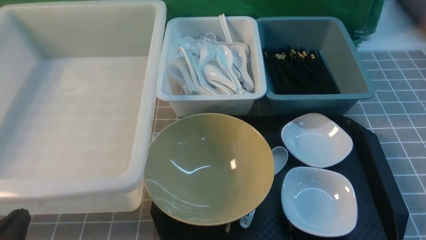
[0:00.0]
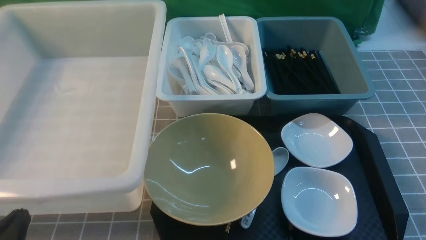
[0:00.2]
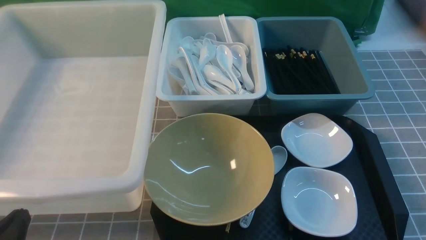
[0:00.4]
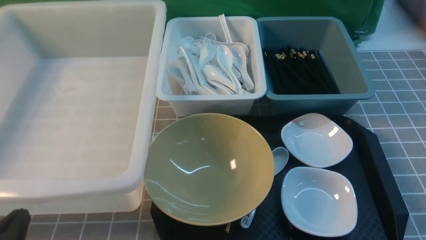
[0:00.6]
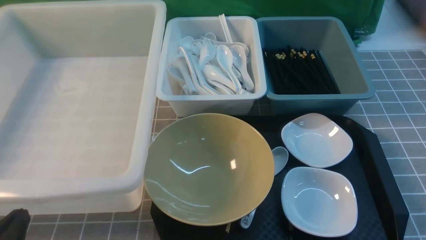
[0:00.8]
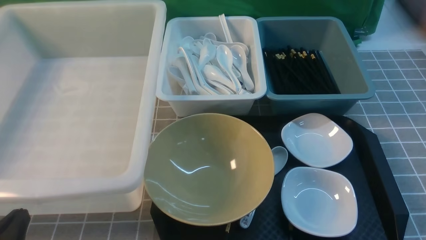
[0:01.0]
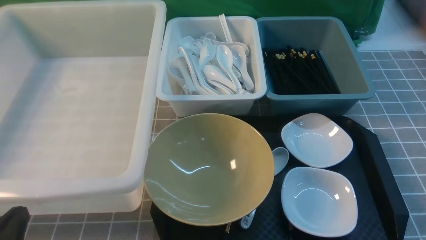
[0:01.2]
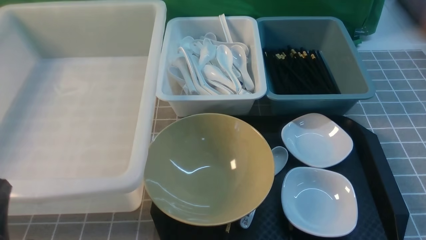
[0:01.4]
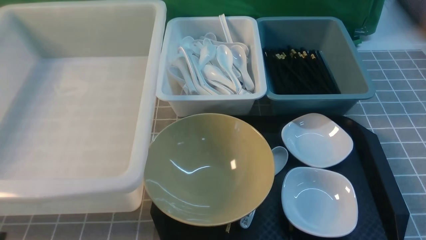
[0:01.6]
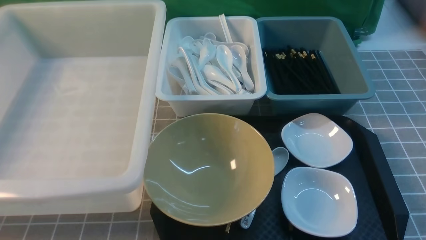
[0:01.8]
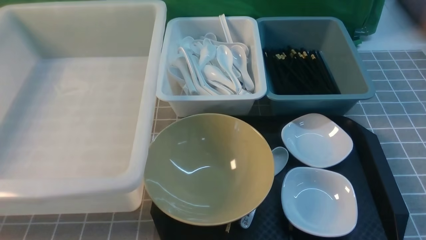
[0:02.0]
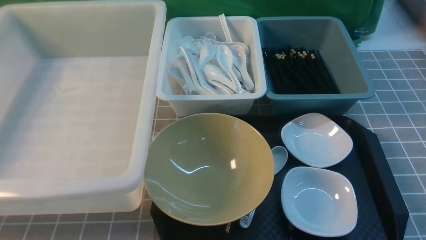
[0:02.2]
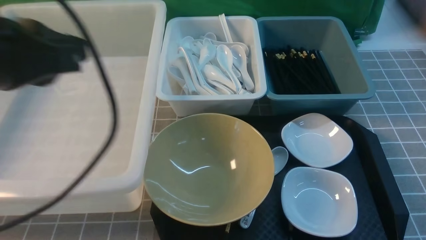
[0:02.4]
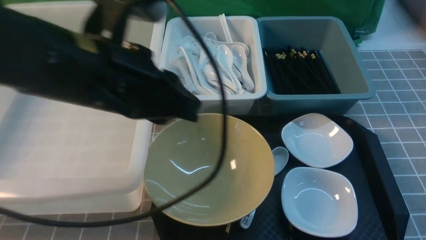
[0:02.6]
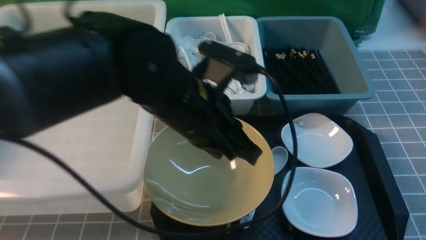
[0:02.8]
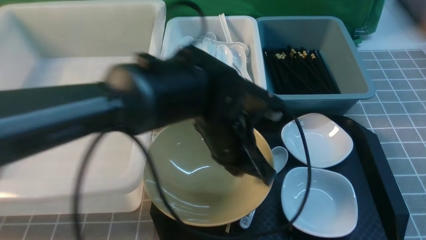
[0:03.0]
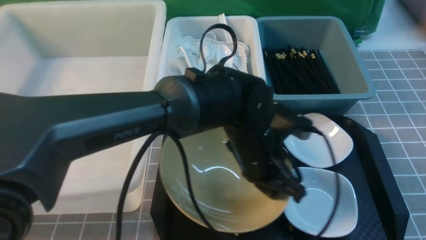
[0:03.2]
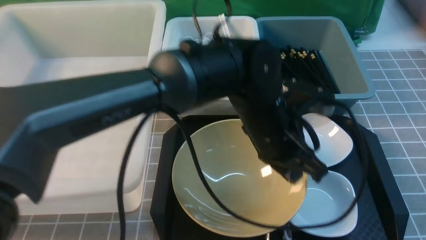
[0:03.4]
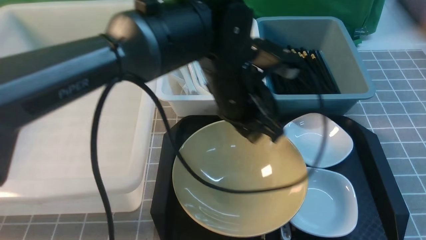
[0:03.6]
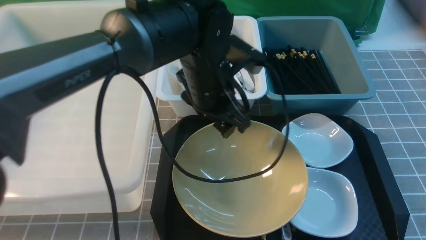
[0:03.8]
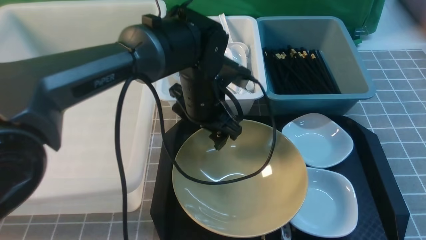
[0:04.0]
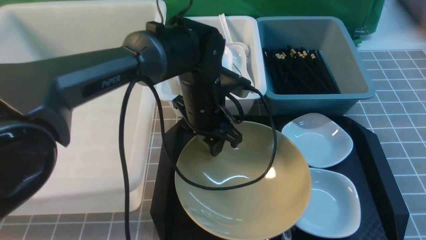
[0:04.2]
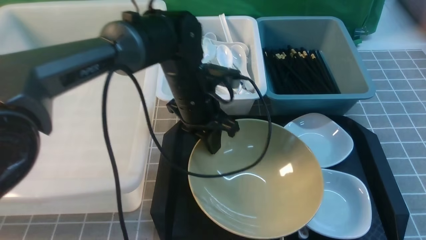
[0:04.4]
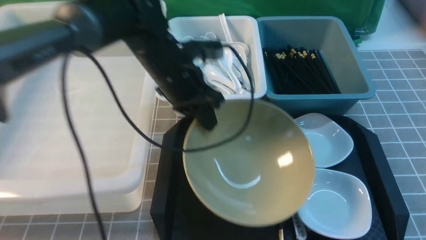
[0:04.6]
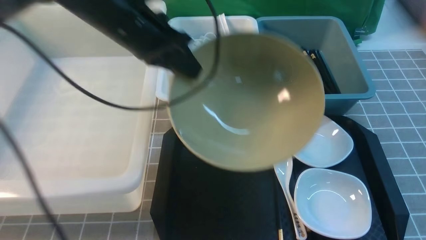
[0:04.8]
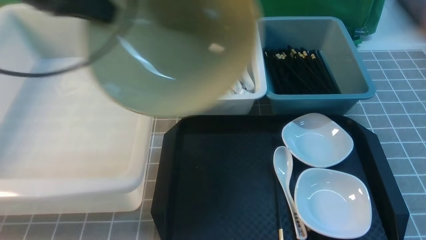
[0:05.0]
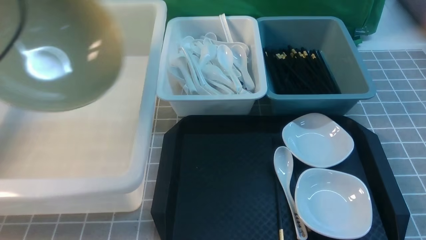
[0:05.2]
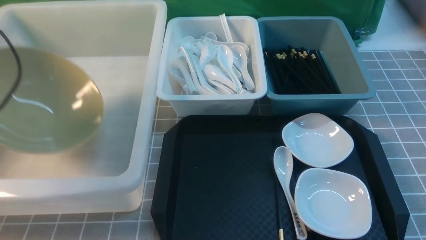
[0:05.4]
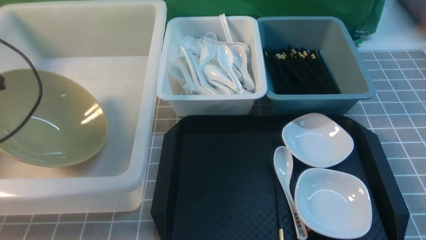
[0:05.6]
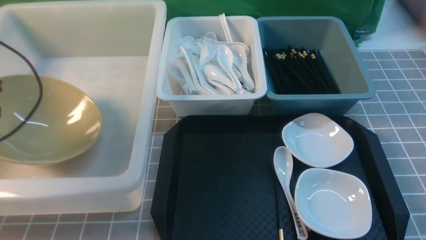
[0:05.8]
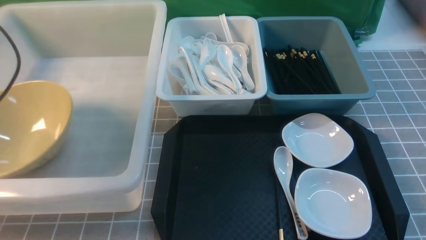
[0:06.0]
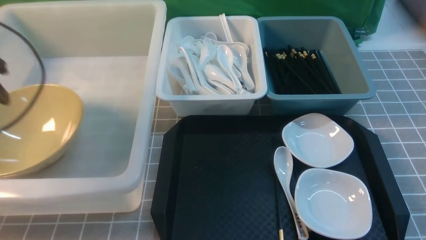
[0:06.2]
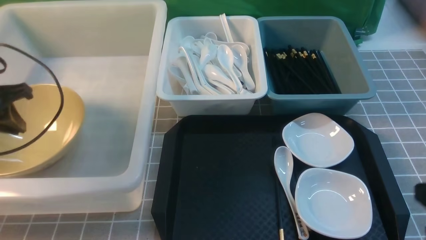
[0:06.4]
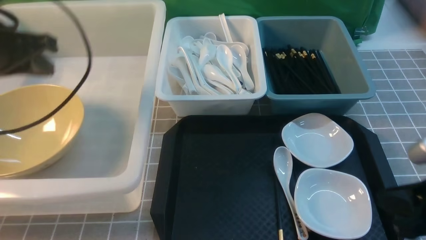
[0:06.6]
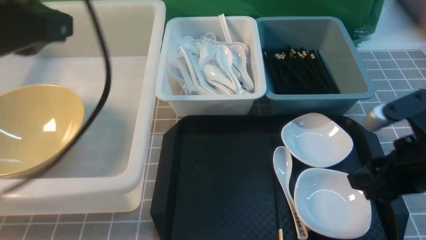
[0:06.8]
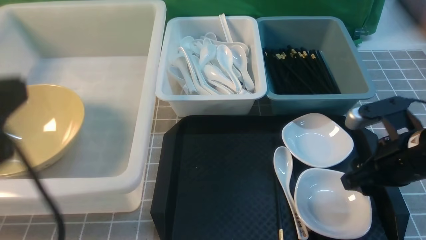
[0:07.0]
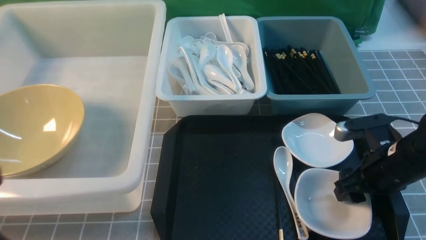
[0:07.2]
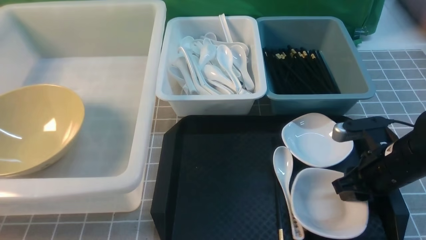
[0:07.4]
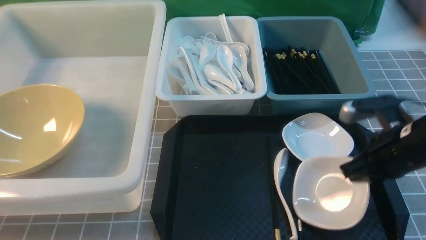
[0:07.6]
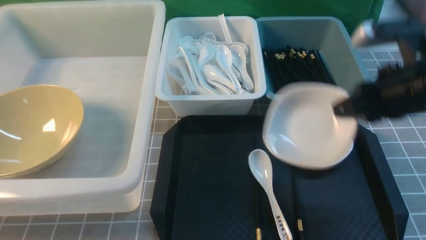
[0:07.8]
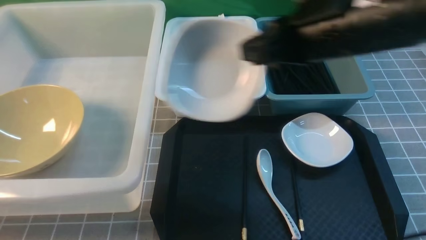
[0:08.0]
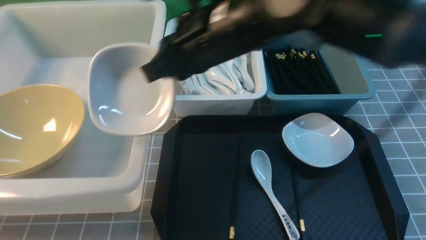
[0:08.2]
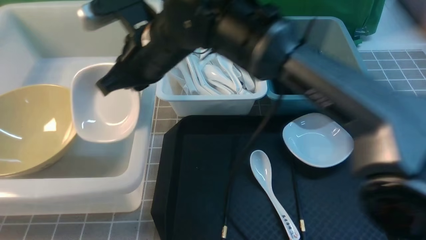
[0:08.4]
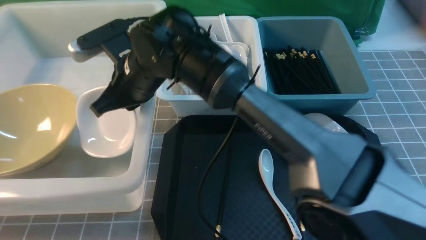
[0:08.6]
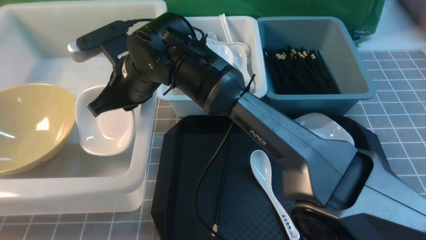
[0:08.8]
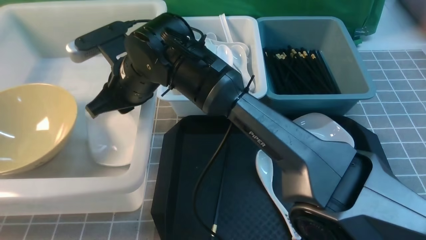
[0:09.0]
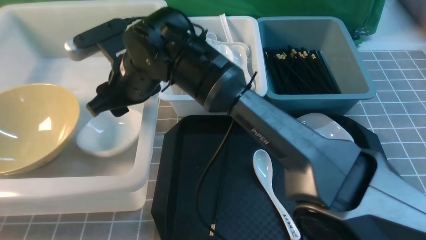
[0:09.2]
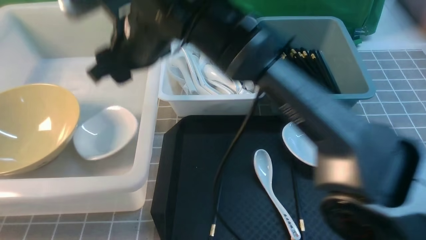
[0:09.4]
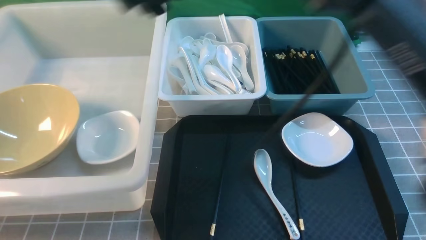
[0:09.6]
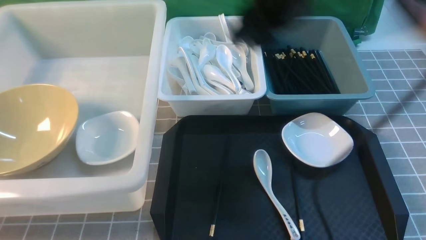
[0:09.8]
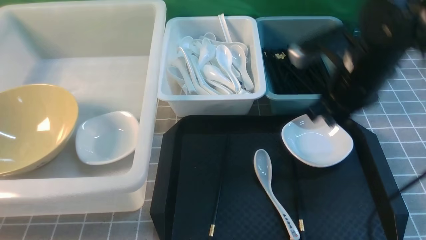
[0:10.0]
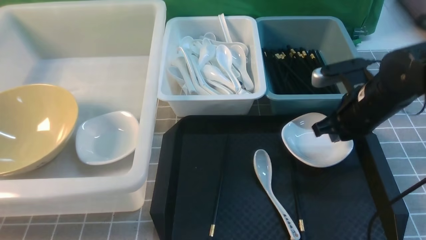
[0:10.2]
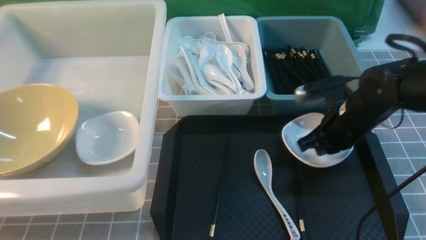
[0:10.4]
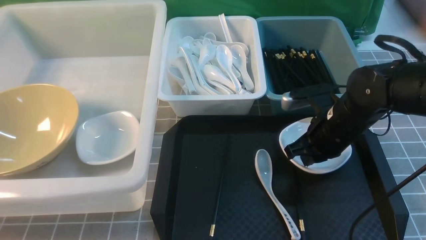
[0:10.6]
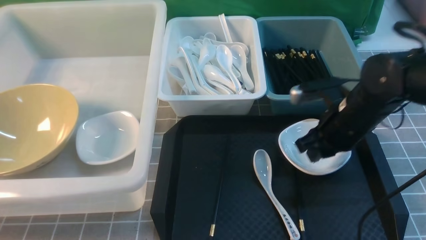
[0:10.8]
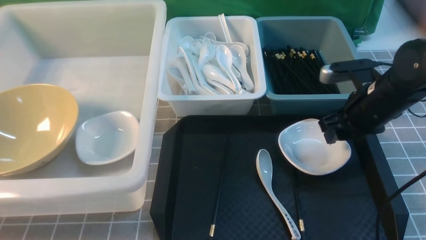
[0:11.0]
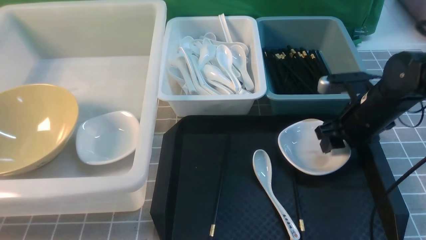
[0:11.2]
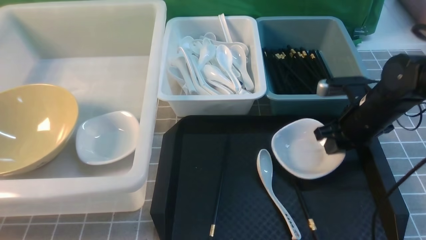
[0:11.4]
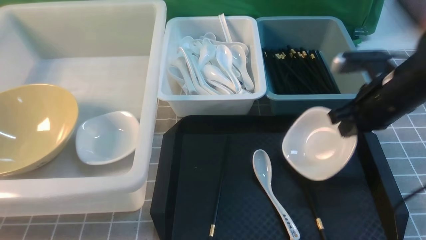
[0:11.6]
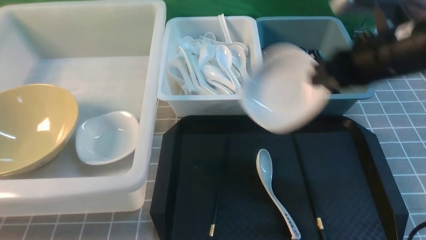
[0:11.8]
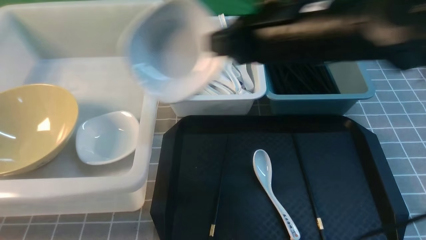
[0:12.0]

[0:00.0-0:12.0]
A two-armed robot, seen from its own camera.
Task of the whole recording: on grey table put chopsticks spoon bowls plates into blue grey white boxes.
Step, 0:00.0 to 0:04.6: use the left arm to grab the yellow noodle bowl on the left.
Step, 0:04.8 to 0:06.4: use the left arm to put the noodle bowl into the large storage box on the left.
Step, 0:06.8 to 0:07.6: use the right arm to grab the plate.
Step, 0:07.8 to 0:09.2: use the right arm to put the plate into the large storage box on the left.
Step, 0:09.4 to 0:11.6: use the right arm to grab the plate.
0:00.0 to 0:01.6: The left gripper heads upward, covering roughly 5 cm.
0:01.6 to 0:03.0: The right gripper shifts some 5 cm forward, and goes upward and returns, roughly 10 cm each way, while the left gripper shifts approximately 35 cm to the right and forward.
0:03.0 to 0:04.4: The left gripper heads forward and to the left, covering some 10 cm, and opens, then closes again.
0:04.4 to 0:06.0: The left gripper shifts approximately 35 cm to the left, and opens its fingers.
0:06.0 to 0:07.6: The left gripper goes roughly 30 cm backward, and closes up; the right gripper is displaced forward and to the left by roughly 15 cm, and opens, then closes once more.
0:07.6 to 0:09.0: The right gripper goes approximately 35 cm to the left.
0:09.0 to 0:10.4: The right gripper shifts some 30 cm to the right, and closes up.
0:10.4 to 0:12.0: The right gripper heads upward and to the left, covering roughly 20 cm, and opens, then closes once more.

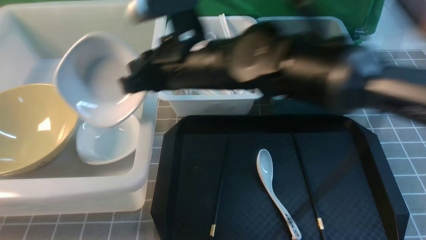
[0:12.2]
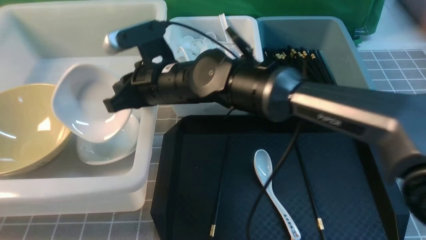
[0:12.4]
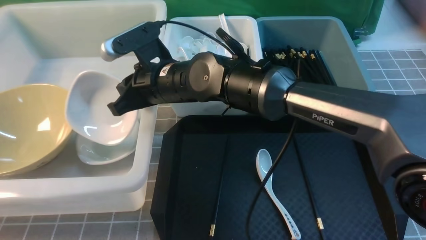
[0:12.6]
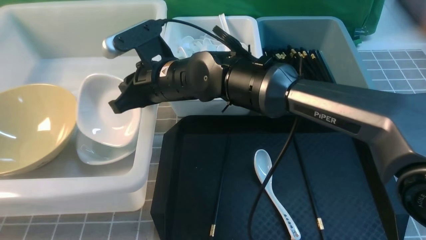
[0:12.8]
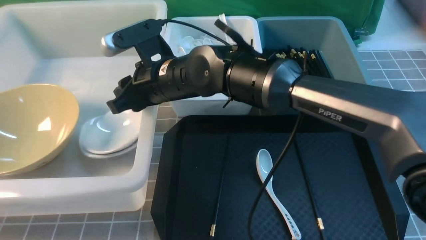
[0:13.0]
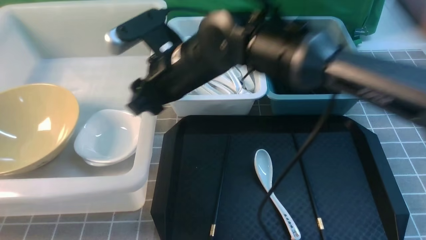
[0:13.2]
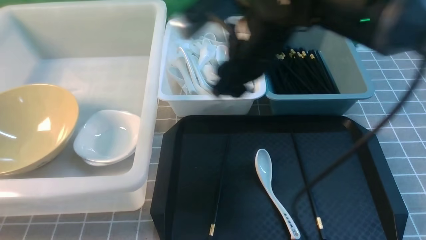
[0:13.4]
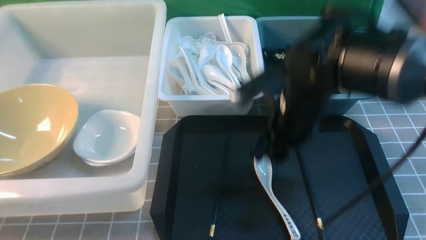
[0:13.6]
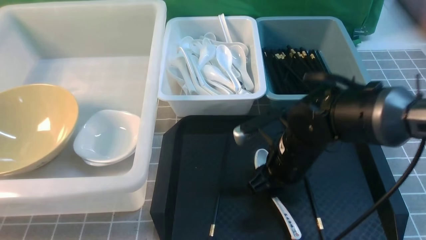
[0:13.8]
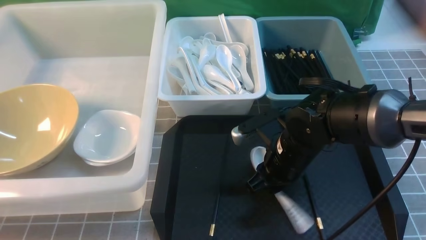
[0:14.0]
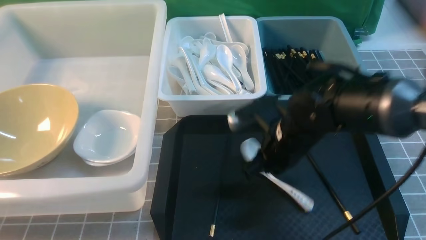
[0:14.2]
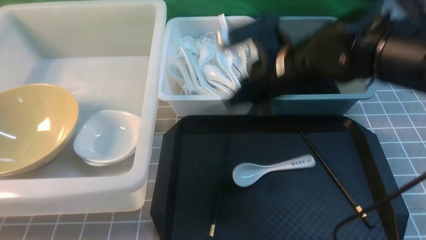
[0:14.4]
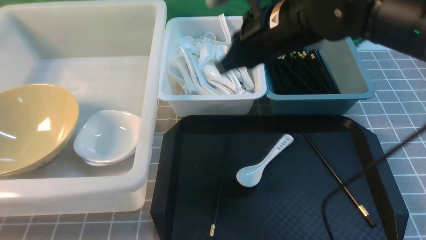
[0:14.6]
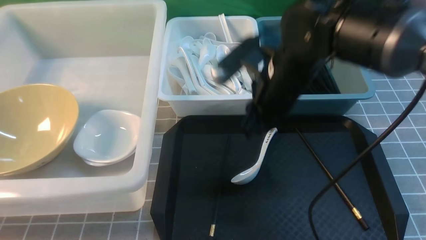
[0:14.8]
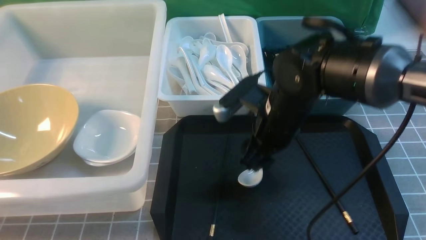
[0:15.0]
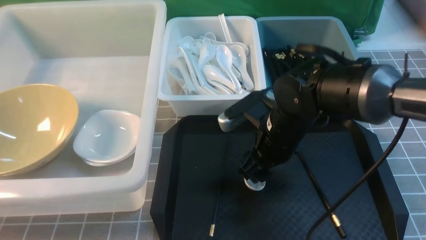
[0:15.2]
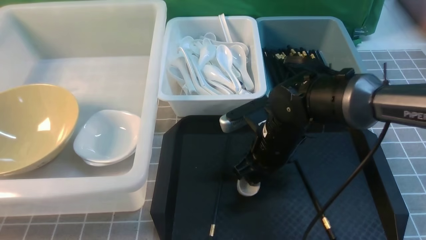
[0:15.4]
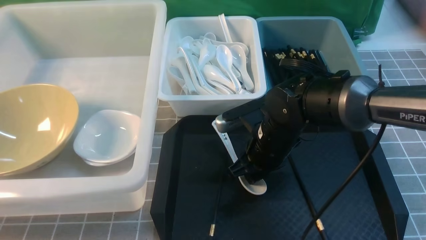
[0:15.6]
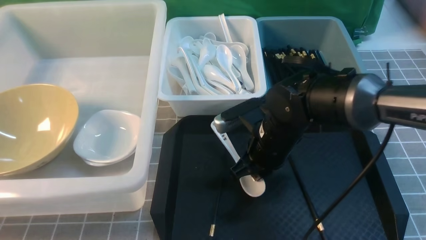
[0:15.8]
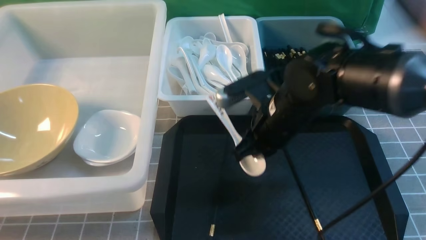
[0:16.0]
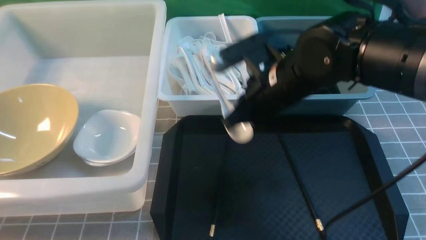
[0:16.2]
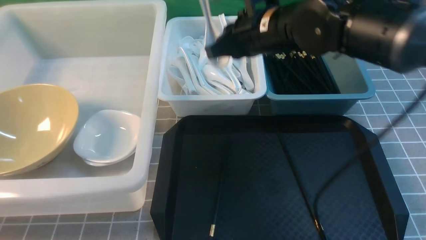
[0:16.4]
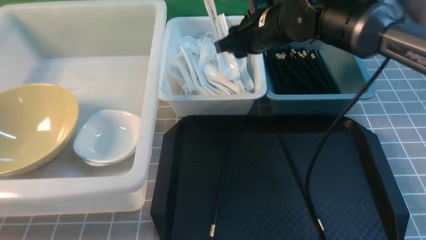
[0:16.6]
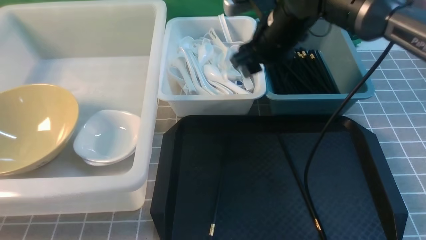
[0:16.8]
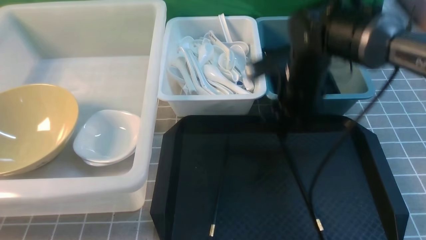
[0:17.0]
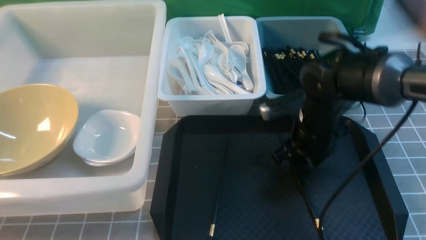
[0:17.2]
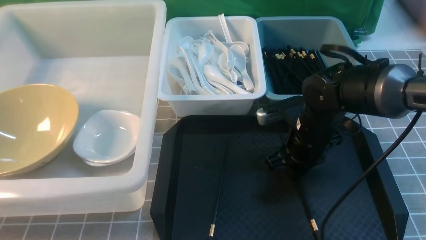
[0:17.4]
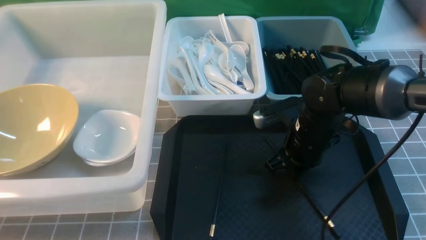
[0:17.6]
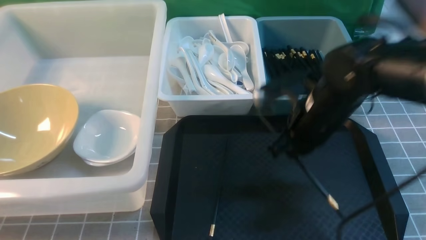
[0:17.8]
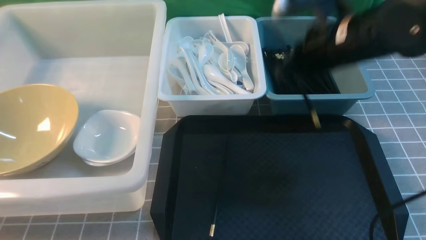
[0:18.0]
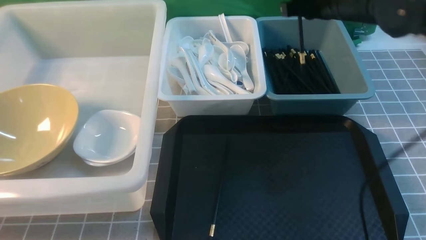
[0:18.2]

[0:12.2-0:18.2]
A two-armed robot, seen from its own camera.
Task of the whole recording: on grey table put chopsticks spoon bowls plates into blue grey white boxes.
Step, 0:12.2 to 0:13.2: use the right arm to put the plate into the large storage box on the left.
Step, 0:13.4 to 0:16.2: use the right arm to grab the soup spoon in the middle.
Step, 0:16.4 to 0:16.6: use the right arm to put the soup spoon into the small storage box in the middle.
Step, 0:17.0 to 0:17.8: use the right arm to grab a chopstick.
0:12.2 to 0:13.8: The right gripper heads to the right and downward, covering roughly 20 cm, and opens its fingers.
0:13.8 to 0:15.2: The right gripper reaches about 10 cm upward, then returns, and closes, then opens again.
0:15.2 to 0:16.6: The right gripper moves forward and upward, roughly 15 cm, and closes up.
0:16.6 to 0:18.2: The right gripper heads to the right, covering about 10 cm, and reaches about 10 cm downward, then returns.
